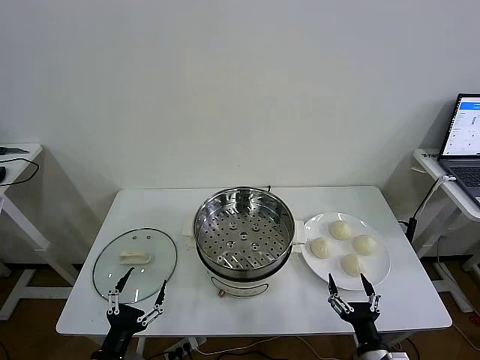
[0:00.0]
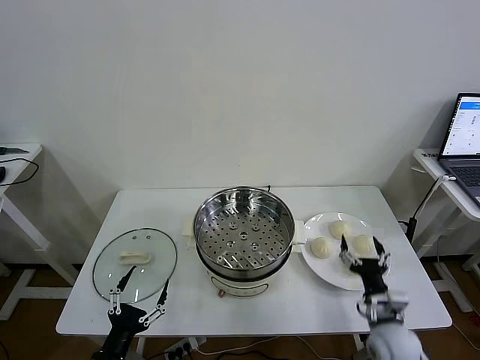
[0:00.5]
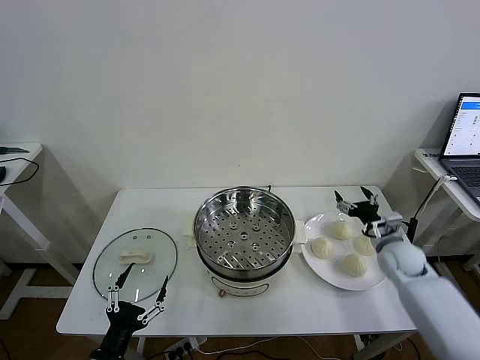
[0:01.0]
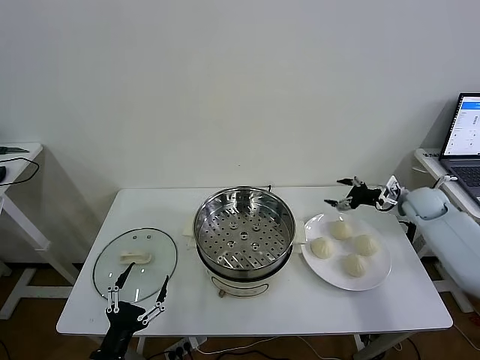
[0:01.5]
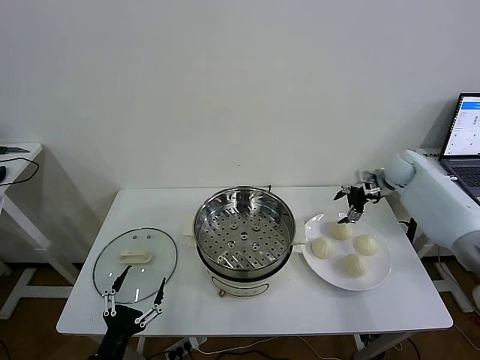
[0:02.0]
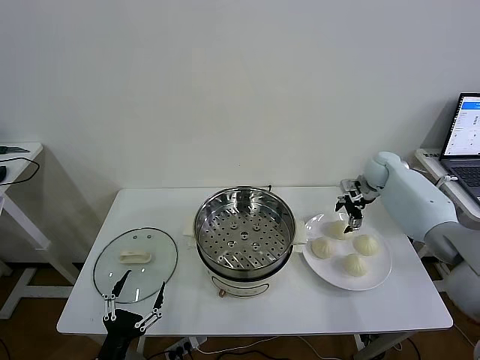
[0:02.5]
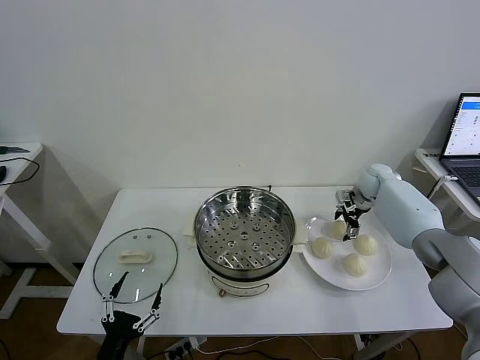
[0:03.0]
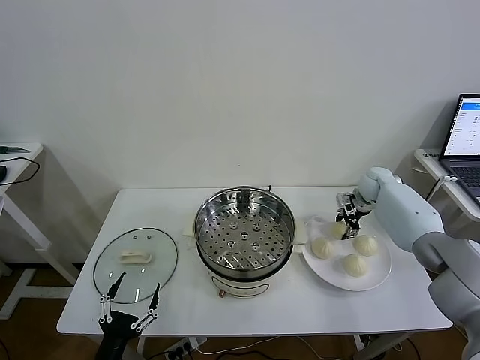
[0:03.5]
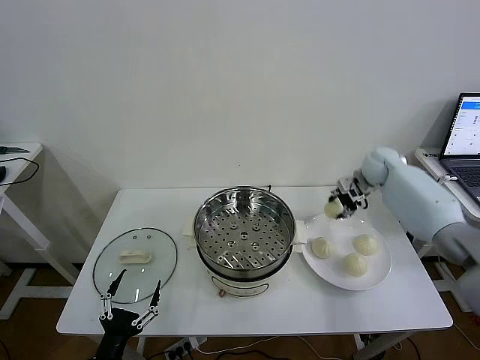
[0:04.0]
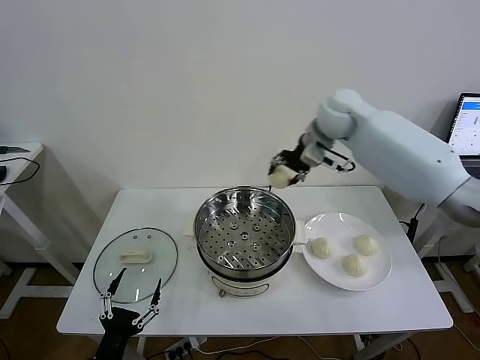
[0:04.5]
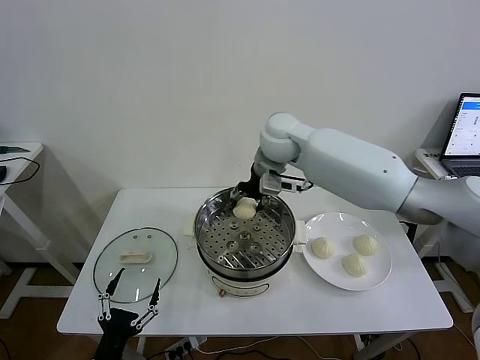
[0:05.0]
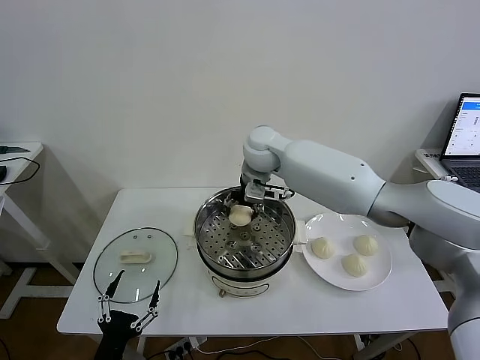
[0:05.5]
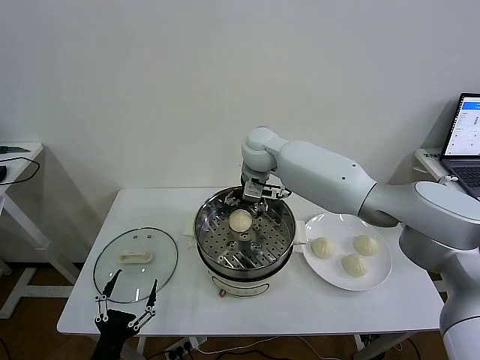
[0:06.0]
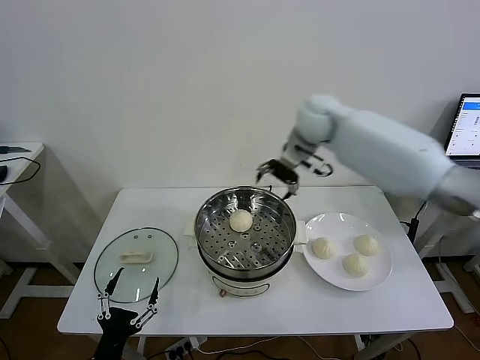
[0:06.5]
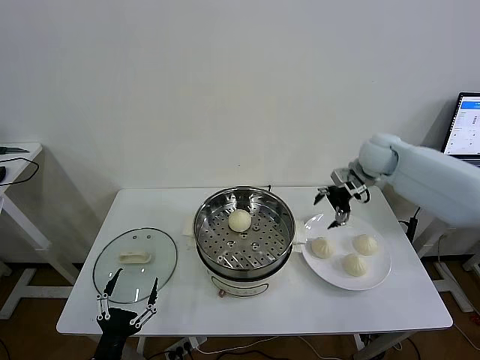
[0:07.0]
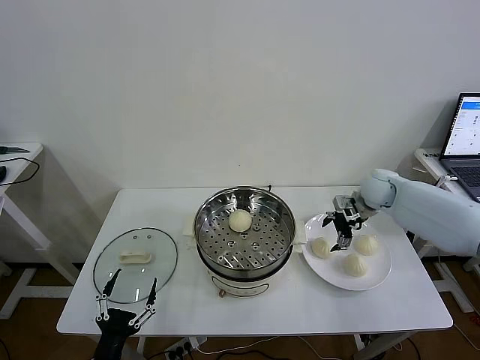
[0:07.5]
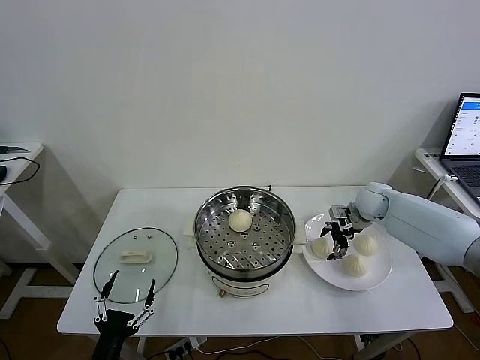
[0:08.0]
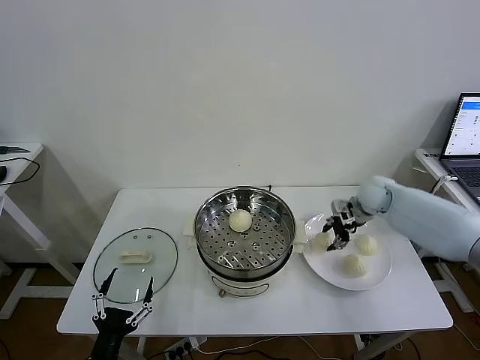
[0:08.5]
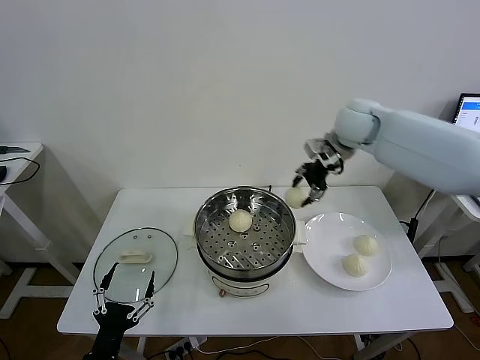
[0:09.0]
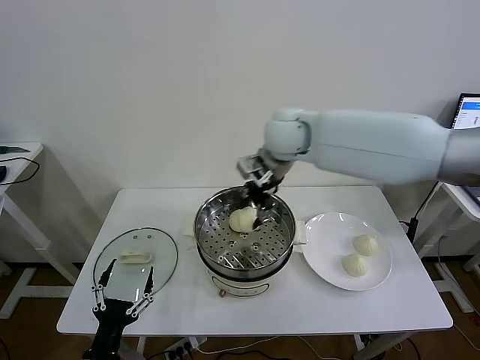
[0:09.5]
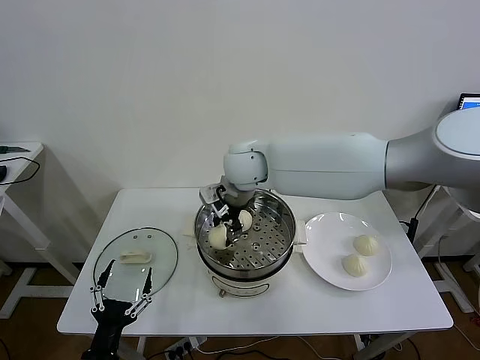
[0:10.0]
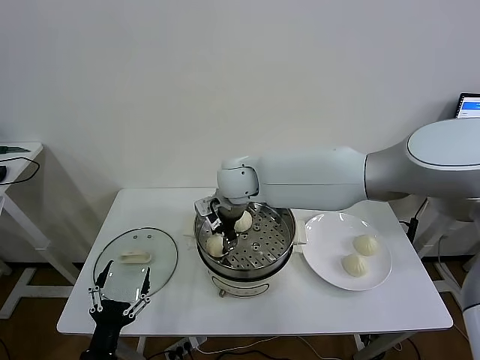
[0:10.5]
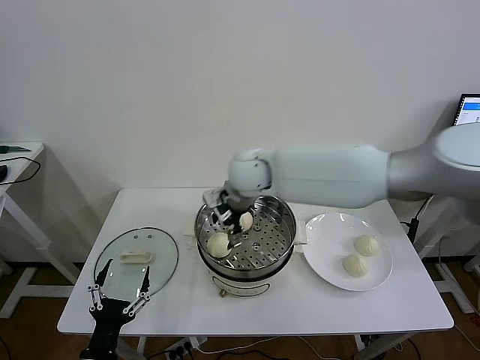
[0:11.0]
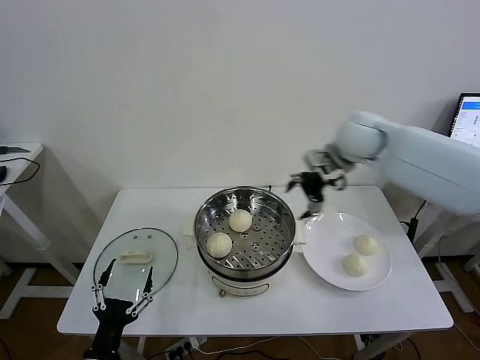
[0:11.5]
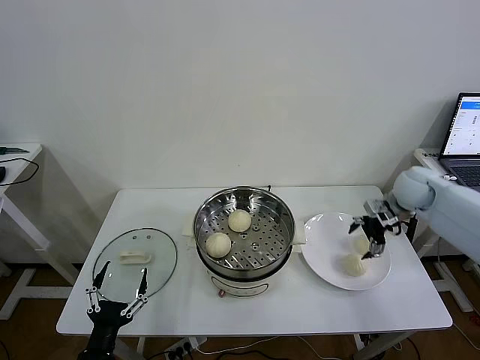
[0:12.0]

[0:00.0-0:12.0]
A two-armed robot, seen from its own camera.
Task of the whole recording: take steamed baozi put them in steamer then cover it.
Step, 0:00.0 to 0:03.5: Grasp the baozi in the plate with right gripper.
Step, 0:04.0 to 0:05.5: Place the baozi on the steamer with right gripper.
Step, 0:06.0 to 0:08.0: Grasp the baozi in the plate with right gripper.
Step, 0:08.5 to 0:10.5: Place the baozi on the steamer with right gripper.
0:02.0 to 0:04.0: The right gripper travels to the left by about 5 cm, and closes.
0:04.0 to 0:06.0: The right gripper is displaced to the left by some 30 cm, and opens.
0:06.0 to 0:08.0: The right gripper goes about 35 cm to the right and downward, and closes.
0:08.0 to 0:10.0: The right gripper travels to the left and upward by some 40 cm, and closes up.
0:10.0 to 0:12.0: The right gripper goes some 40 cm to the right, and opens.

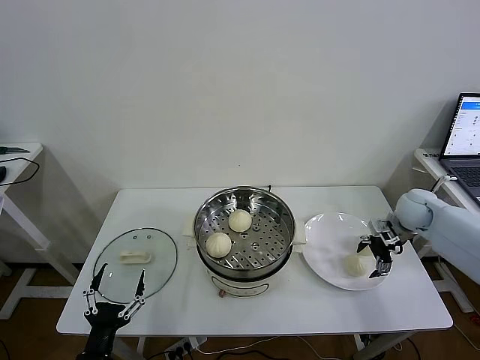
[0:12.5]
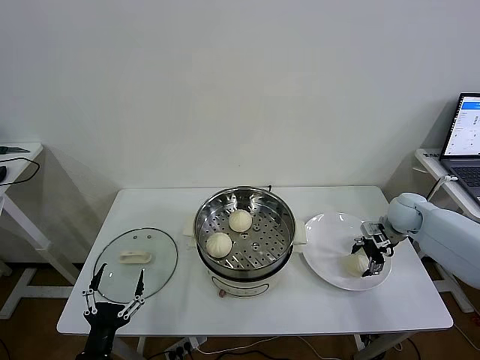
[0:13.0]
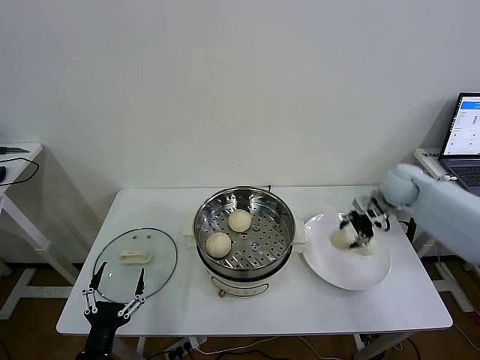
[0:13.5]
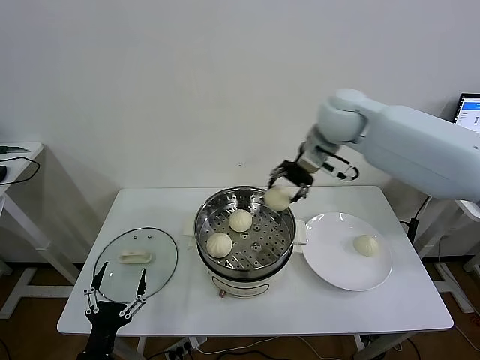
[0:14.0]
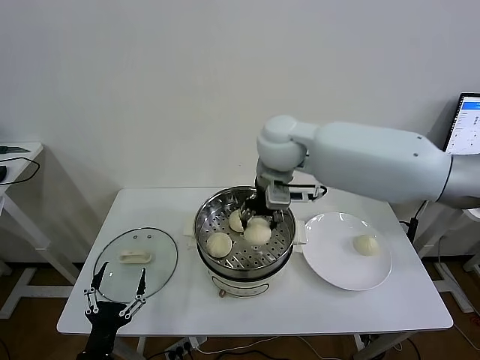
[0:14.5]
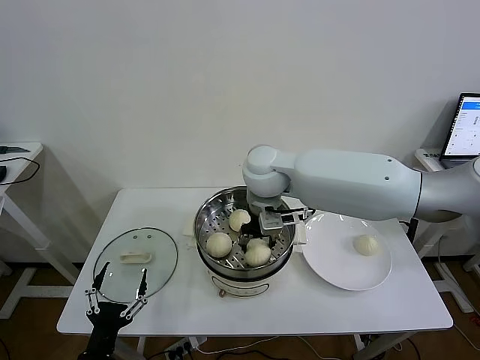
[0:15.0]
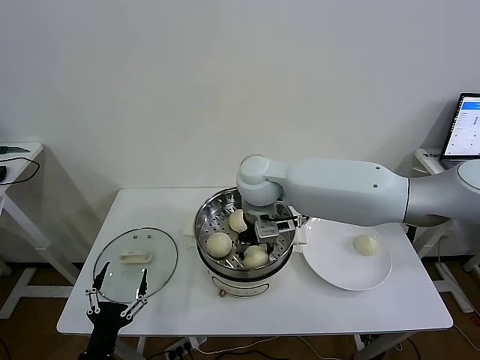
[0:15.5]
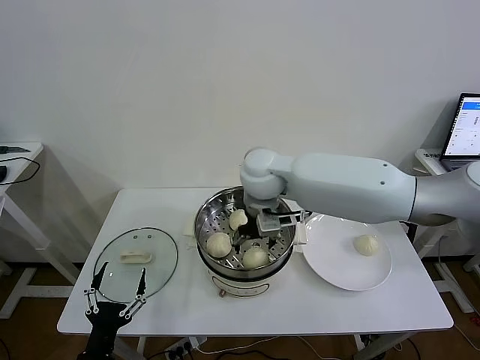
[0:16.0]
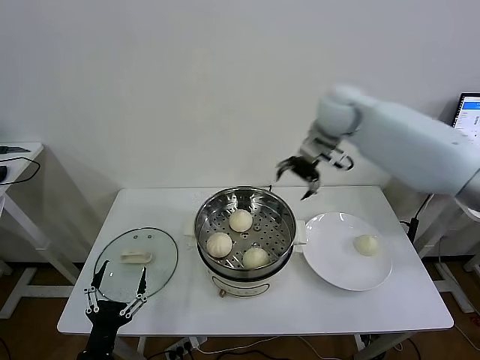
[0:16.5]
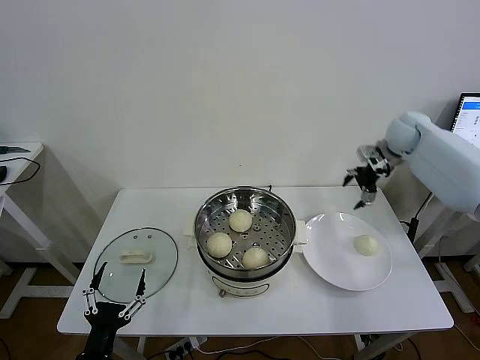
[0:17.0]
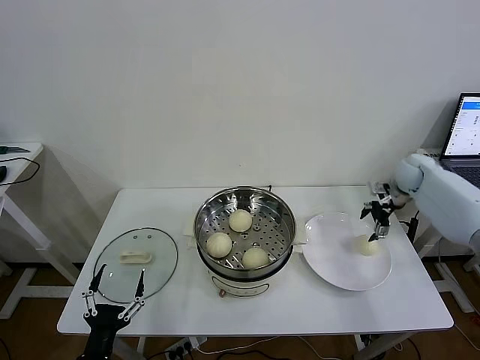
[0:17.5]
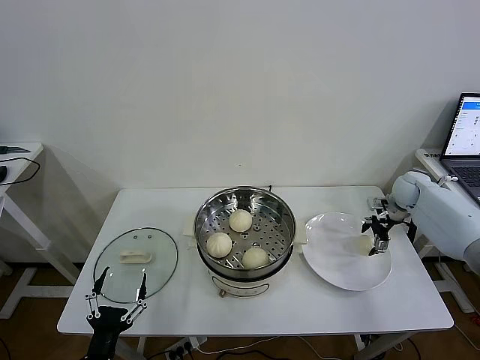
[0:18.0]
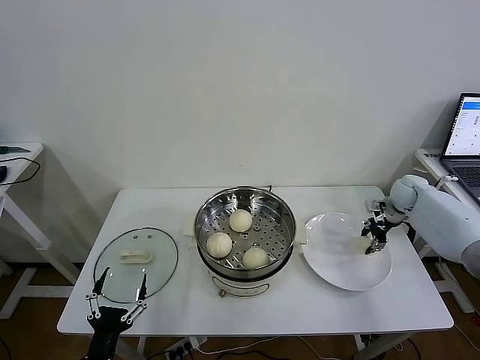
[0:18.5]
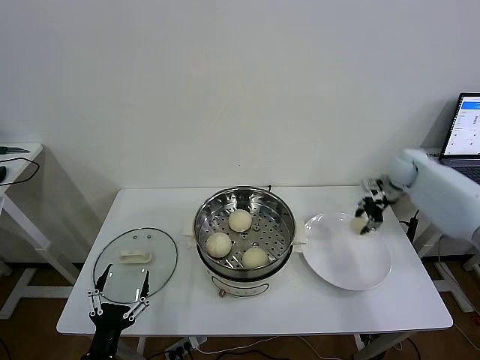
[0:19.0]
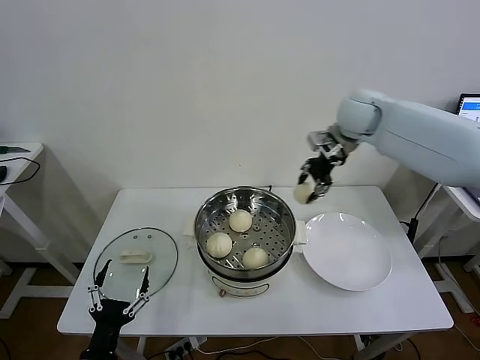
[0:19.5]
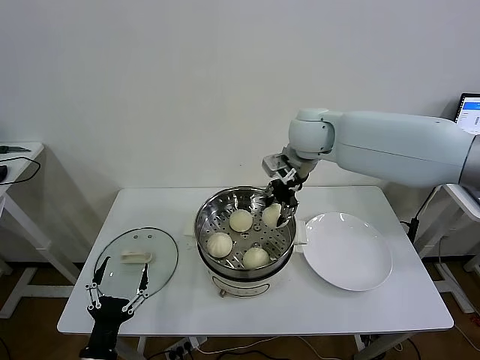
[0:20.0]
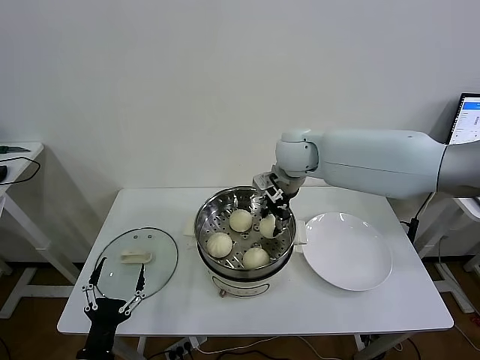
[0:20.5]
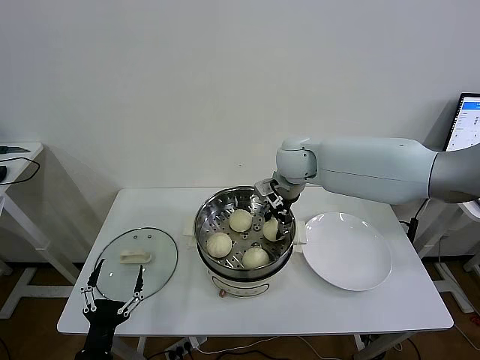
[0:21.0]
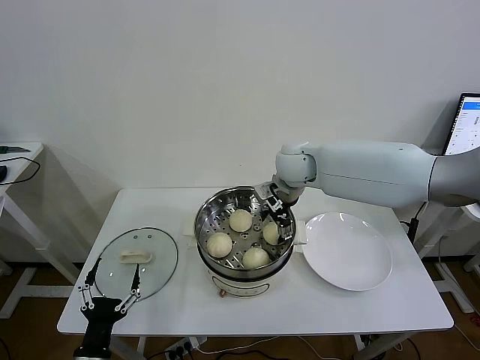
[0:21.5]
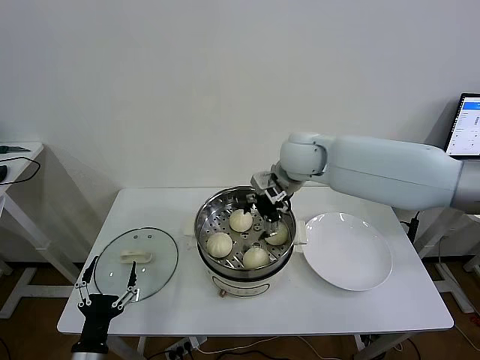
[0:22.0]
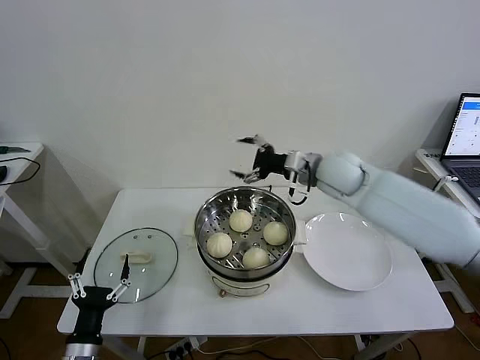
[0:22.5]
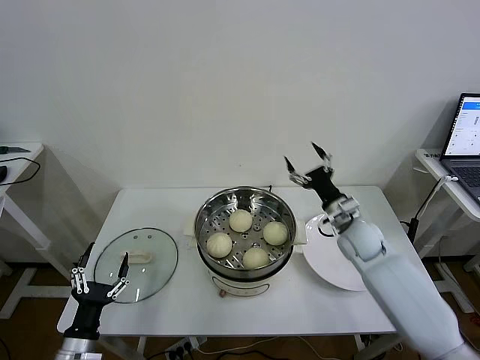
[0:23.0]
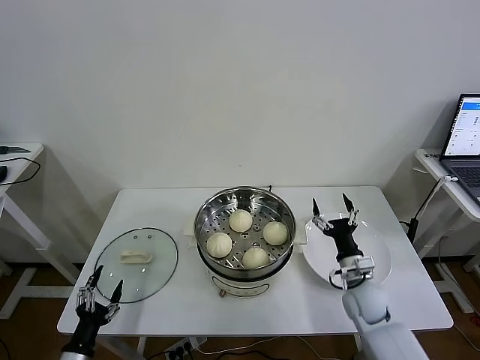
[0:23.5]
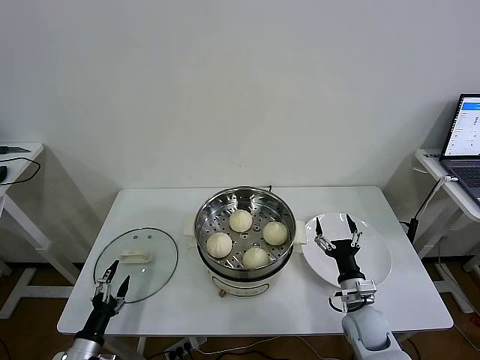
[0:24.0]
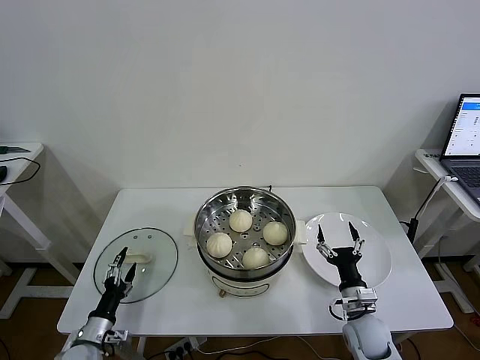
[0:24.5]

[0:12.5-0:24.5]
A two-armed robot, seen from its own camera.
Task of the whole recording: take steamed baozi put them in steamer then cover it.
Step, 0:13.5 to 0:15.5: Place the baozi on the steamer with right gripper.
Step, 0:16.0 to 0:18.5: Grasp the baozi in the plate with right gripper.
Step, 0:19.0 to 0:21.0: Place the baozi on the steamer with right gripper.
0:12.5 to 0:14.5: The right gripper travels to the left and upward by some 40 cm, and closes up.
0:14.5 to 0:16.5: The right gripper heads to the right and forward, covering some 20 cm, and opens its fingers.
0:16.5 to 0:18.5: The right gripper heads downward and to the right, covering roughly 35 cm, and closes its fingers.
0:18.5 to 0:20.5: The right gripper moves to the left and upward, some 40 cm.
0:20.5 to 0:22.5: The right gripper travels to the right by about 10 cm, and opens up.
0:22.5 to 0:24.5: The right gripper moves downward and backward, approximately 40 cm. Meanwhile the left gripper heads downward and forward, covering some 10 cm.

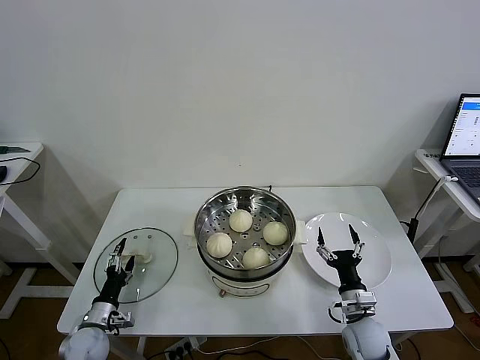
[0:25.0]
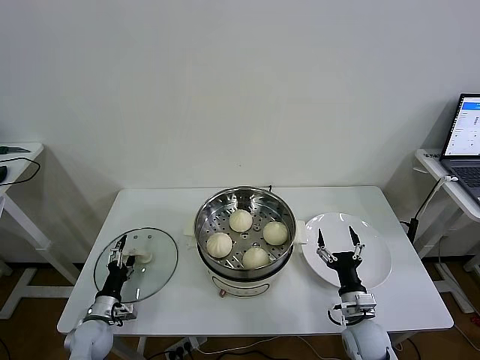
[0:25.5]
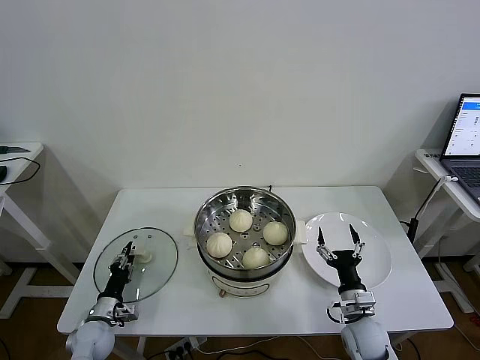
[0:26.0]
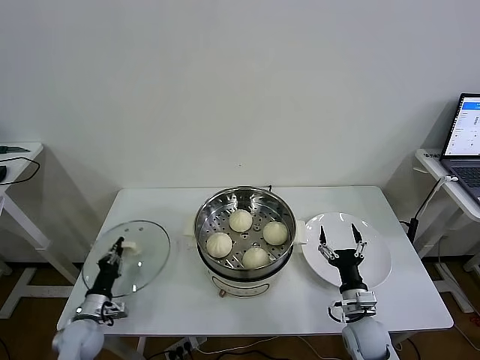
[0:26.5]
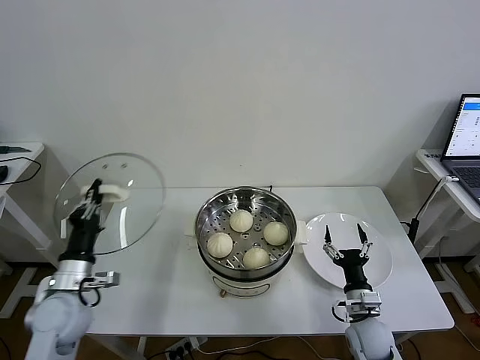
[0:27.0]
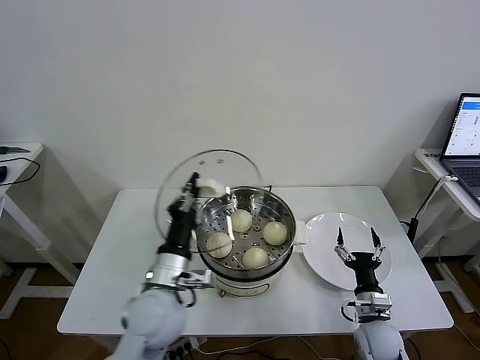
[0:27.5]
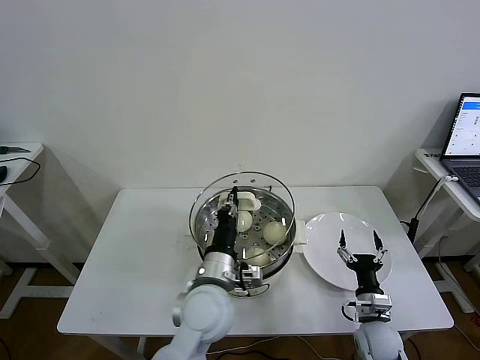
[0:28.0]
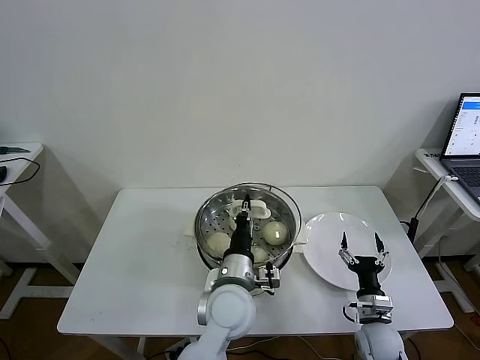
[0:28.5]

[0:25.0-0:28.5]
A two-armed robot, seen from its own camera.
Task of the whole recording: take steamed baozi put them in steamer then cover it.
0:25.0 to 0:27.0: The left gripper heads upward, covering some 20 cm, and closes its fingers.
0:27.0 to 0:28.5: The left gripper goes about 35 cm to the right.
